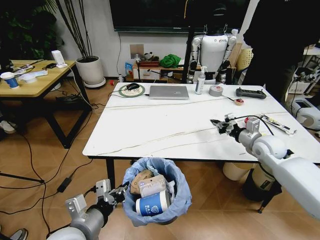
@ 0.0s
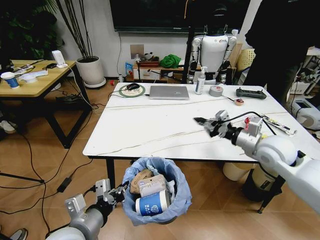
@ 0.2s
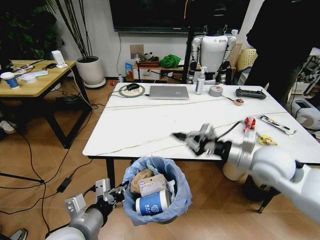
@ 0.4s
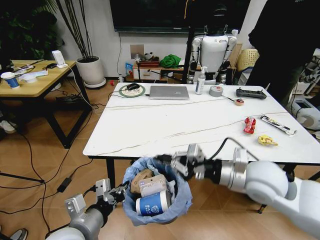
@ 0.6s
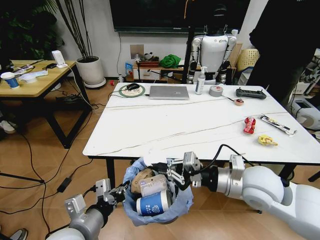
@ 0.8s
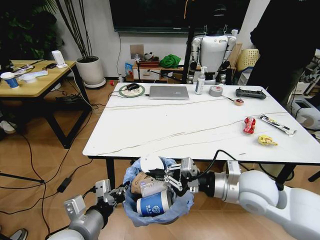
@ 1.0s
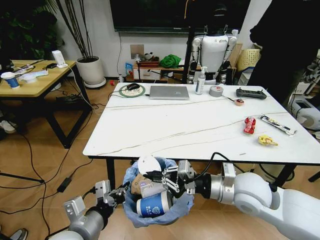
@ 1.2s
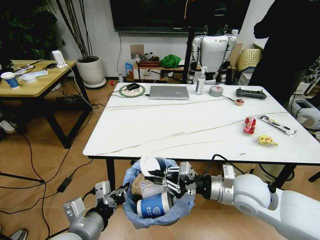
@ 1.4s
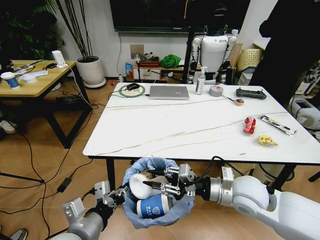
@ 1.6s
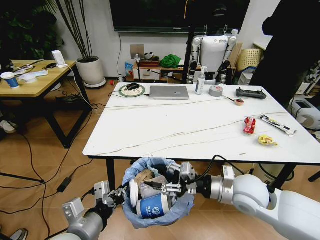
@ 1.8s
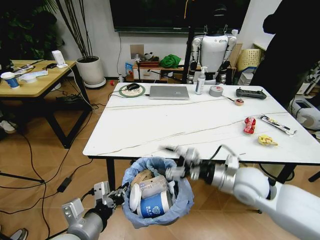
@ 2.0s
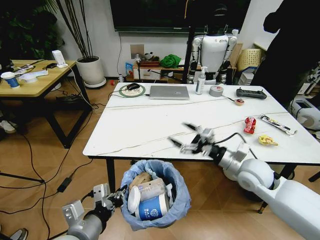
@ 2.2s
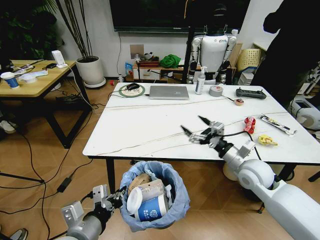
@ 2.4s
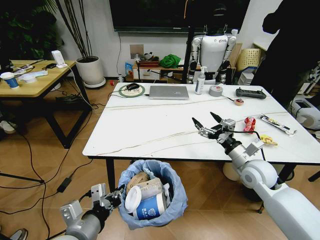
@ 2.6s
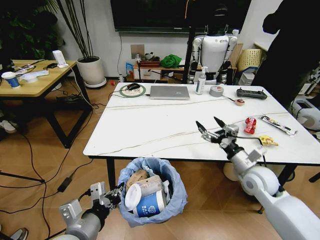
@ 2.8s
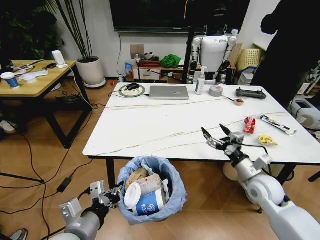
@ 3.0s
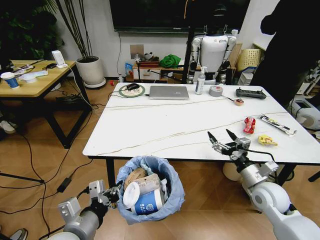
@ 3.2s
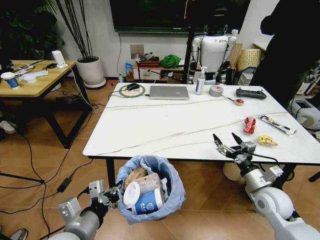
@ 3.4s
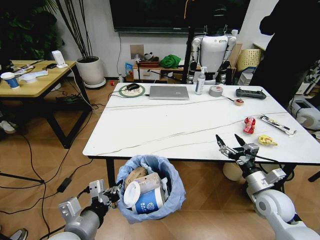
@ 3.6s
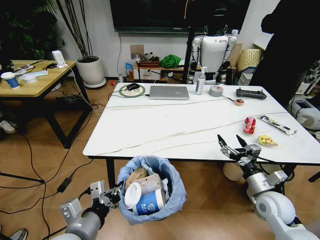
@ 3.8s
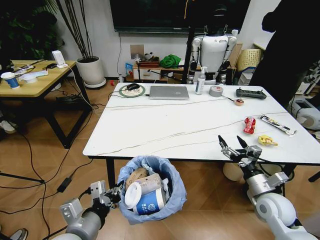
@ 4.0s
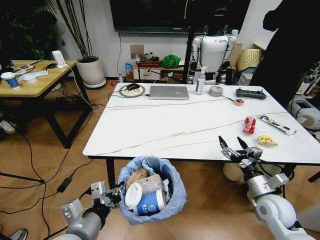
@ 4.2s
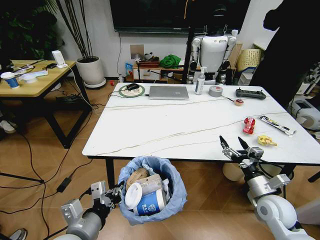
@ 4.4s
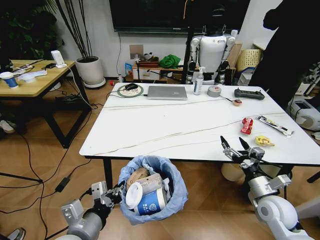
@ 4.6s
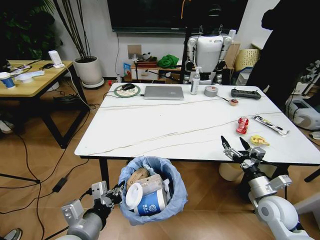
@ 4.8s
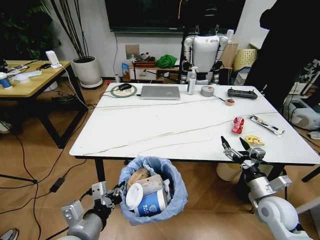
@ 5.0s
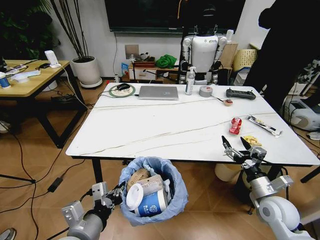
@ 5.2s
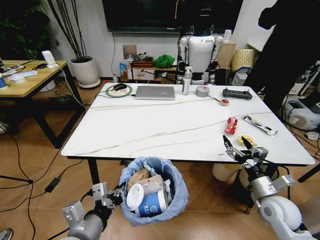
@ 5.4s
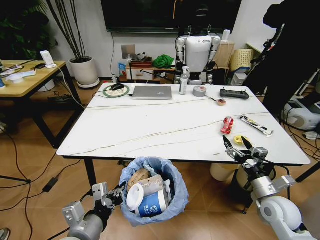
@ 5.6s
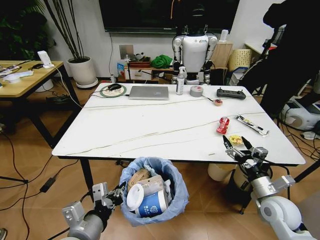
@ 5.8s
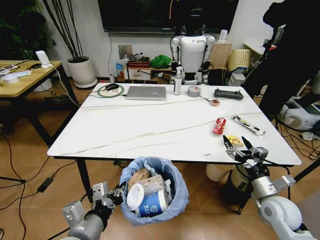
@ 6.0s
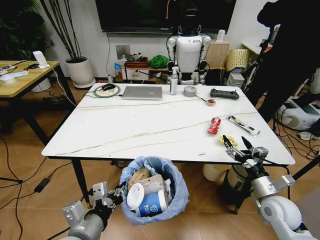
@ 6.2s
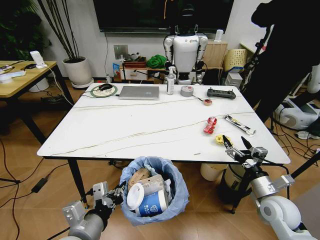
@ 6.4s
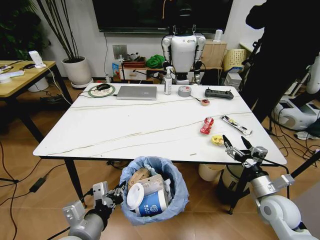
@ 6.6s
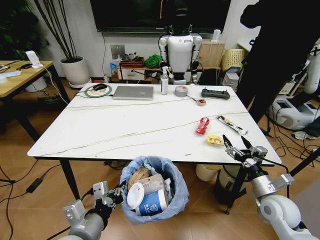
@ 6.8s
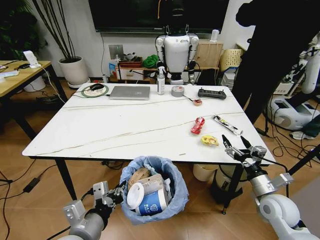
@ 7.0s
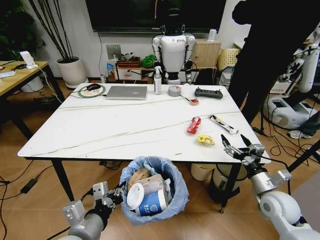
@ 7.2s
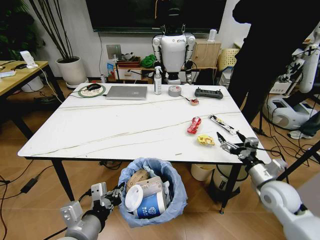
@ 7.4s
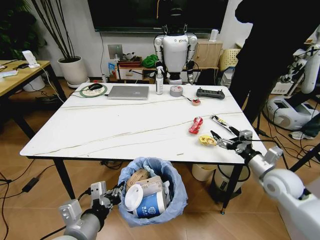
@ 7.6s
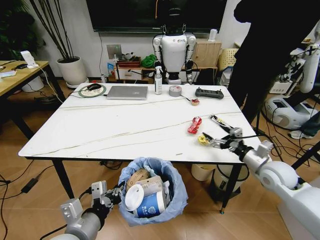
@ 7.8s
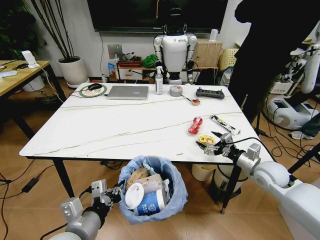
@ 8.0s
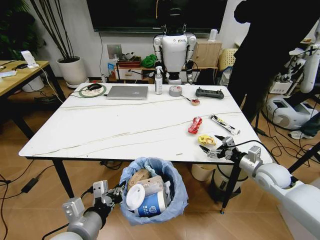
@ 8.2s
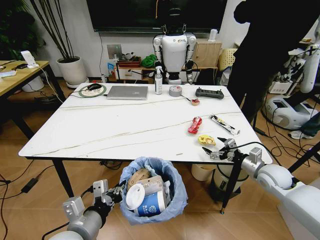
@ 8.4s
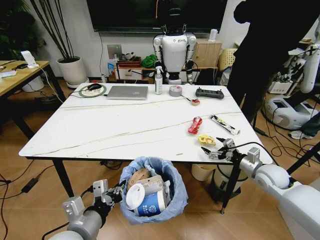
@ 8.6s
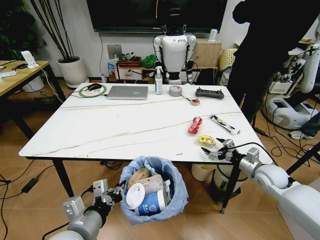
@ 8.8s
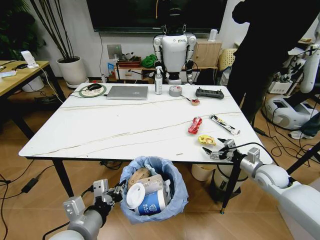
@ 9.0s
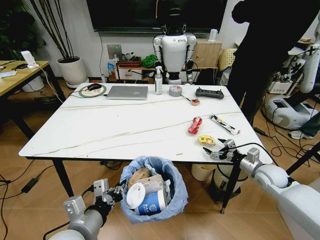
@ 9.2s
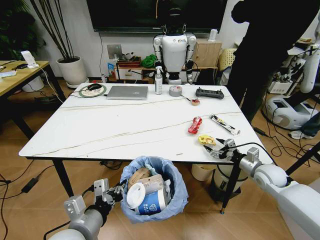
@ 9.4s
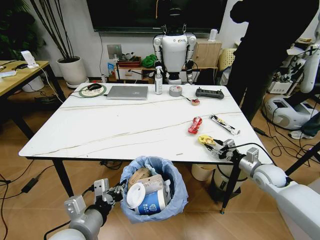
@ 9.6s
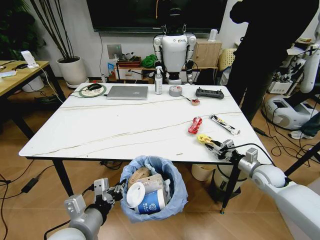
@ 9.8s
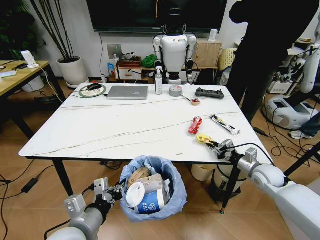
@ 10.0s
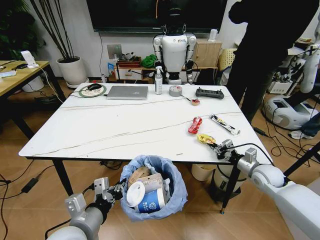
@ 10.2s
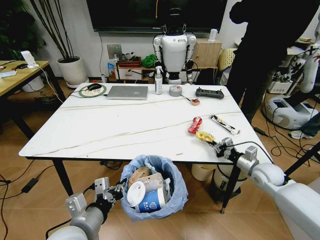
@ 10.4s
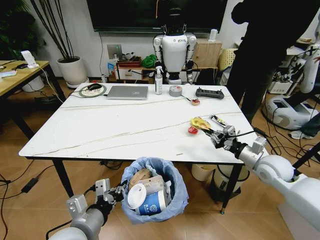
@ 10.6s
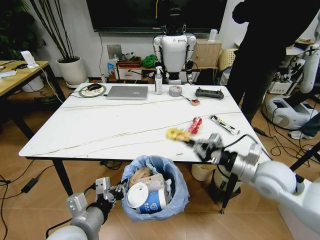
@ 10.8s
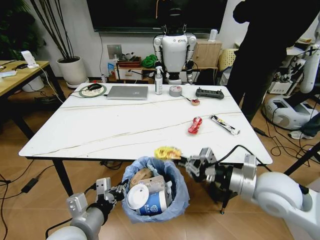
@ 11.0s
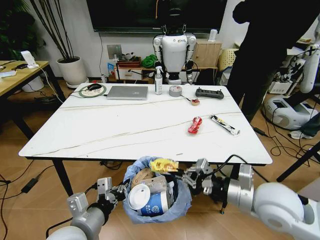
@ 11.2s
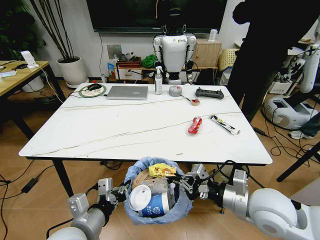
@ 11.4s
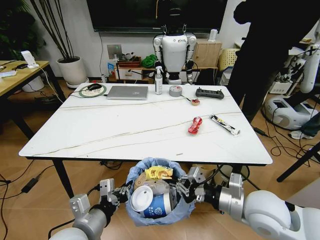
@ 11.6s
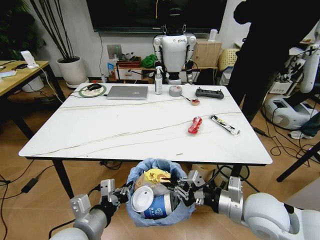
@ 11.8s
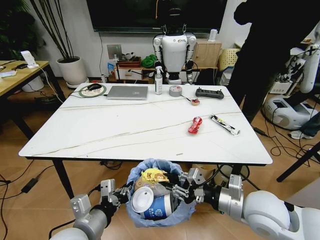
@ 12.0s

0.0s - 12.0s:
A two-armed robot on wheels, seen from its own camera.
Task of the whole recording: Pick up the trash bin and place the trash from the table into it.
0.0s - 1.6s: The right gripper travels backward and to the left by approximately 20 cm.
1.6s - 3.0s: The right gripper heads to the right and downward, covering about 10 cm, and opens up.
3.0s - 4.4s: The right gripper is displaced backward by approximately 5 cm.
6.0s - 7.6s: The right gripper shifts some 10 cm forward and upward.
7.6s - 9.0s: The right gripper shifts about 5 cm downward.
9.0s - 10.4s: The right gripper closes up.
10.4s - 12.0s: The right gripper goes some 25 cm backward, to the left and upward.

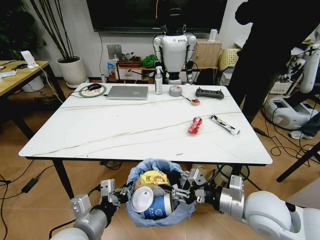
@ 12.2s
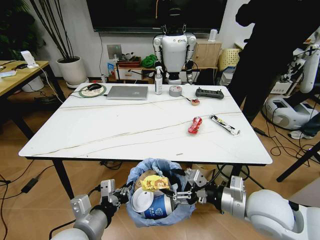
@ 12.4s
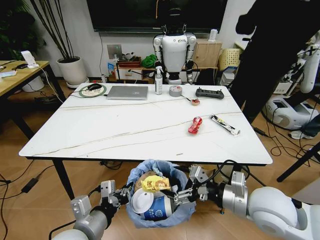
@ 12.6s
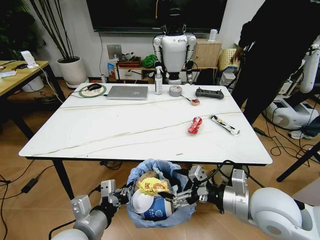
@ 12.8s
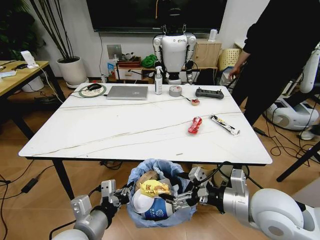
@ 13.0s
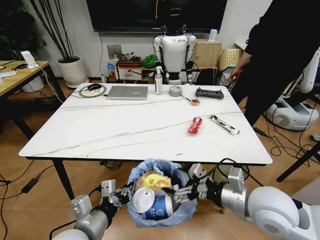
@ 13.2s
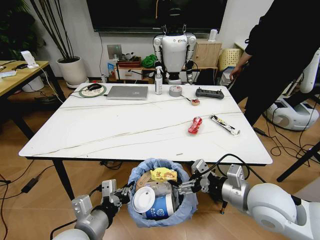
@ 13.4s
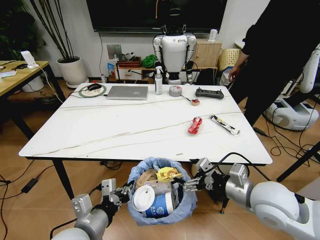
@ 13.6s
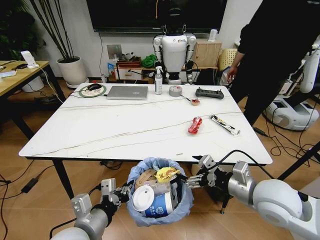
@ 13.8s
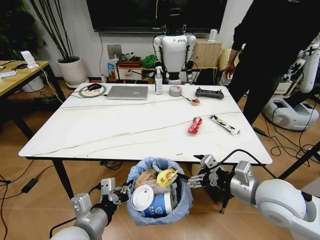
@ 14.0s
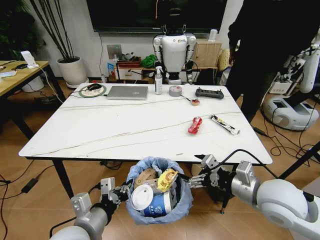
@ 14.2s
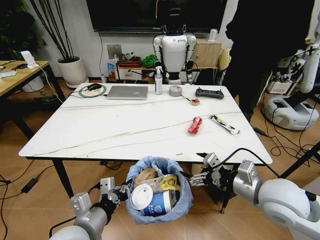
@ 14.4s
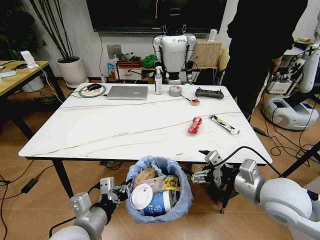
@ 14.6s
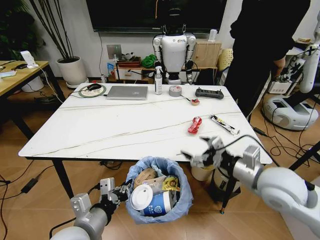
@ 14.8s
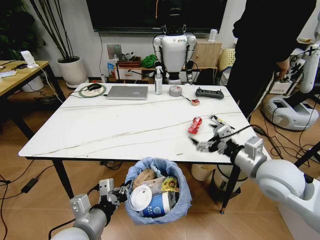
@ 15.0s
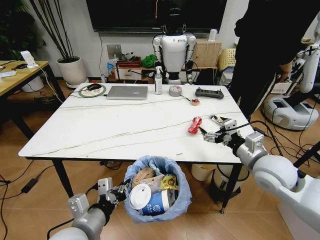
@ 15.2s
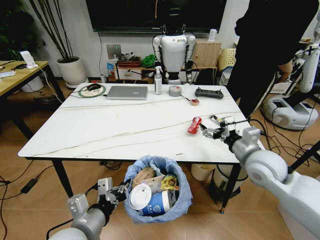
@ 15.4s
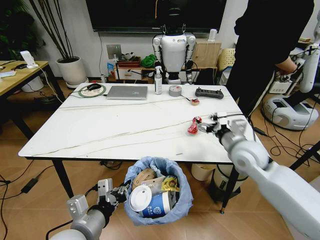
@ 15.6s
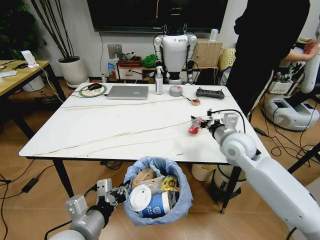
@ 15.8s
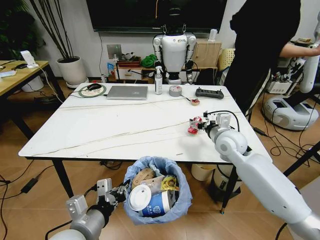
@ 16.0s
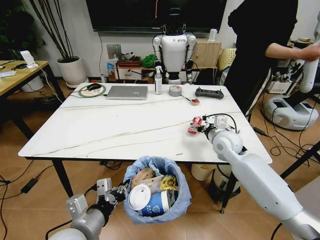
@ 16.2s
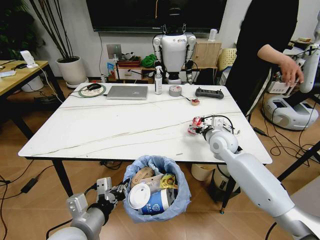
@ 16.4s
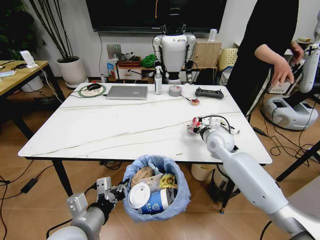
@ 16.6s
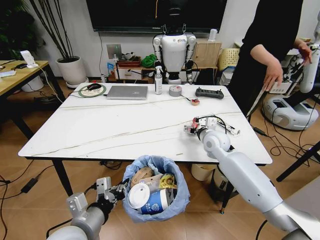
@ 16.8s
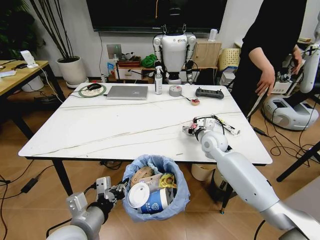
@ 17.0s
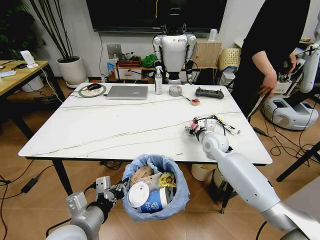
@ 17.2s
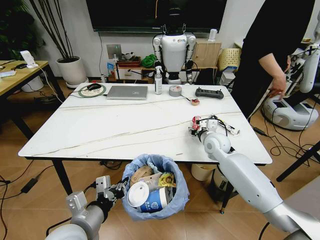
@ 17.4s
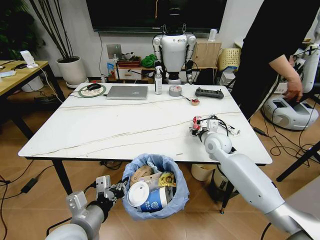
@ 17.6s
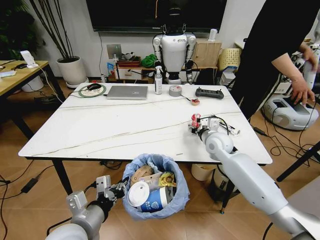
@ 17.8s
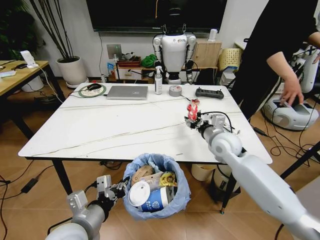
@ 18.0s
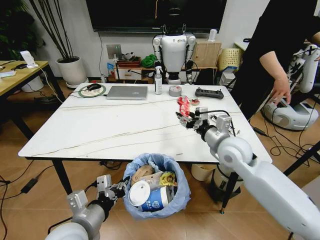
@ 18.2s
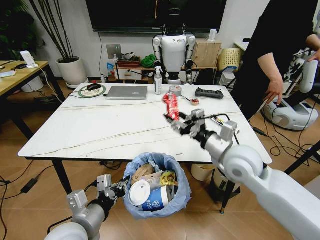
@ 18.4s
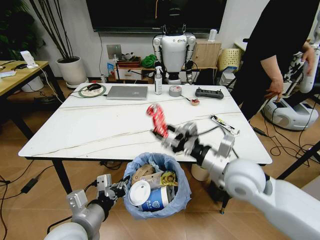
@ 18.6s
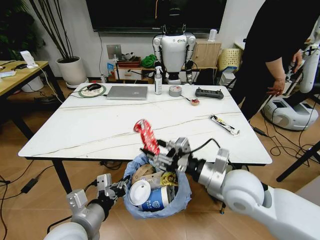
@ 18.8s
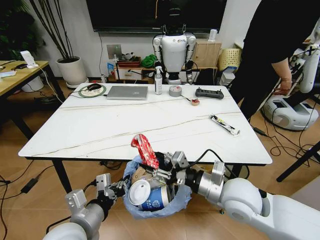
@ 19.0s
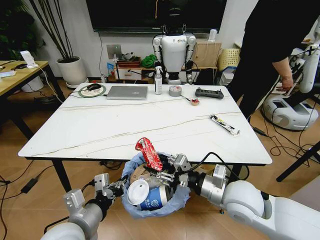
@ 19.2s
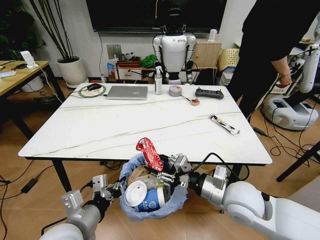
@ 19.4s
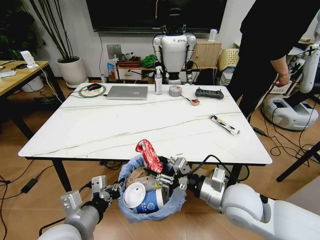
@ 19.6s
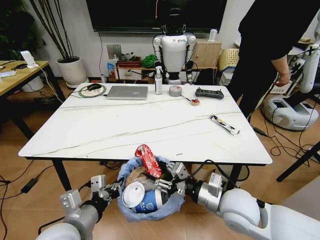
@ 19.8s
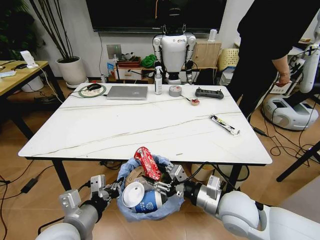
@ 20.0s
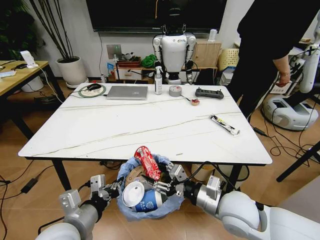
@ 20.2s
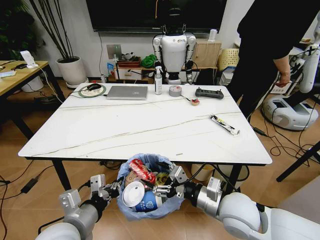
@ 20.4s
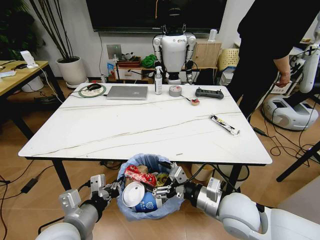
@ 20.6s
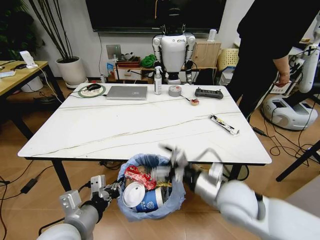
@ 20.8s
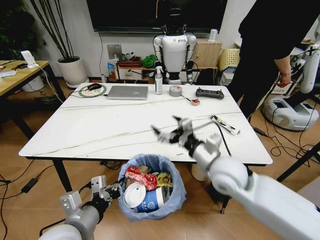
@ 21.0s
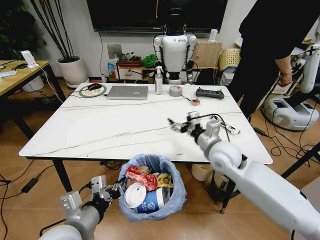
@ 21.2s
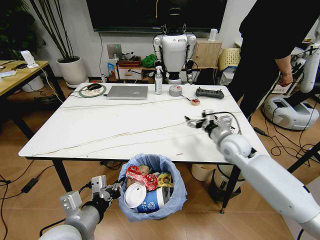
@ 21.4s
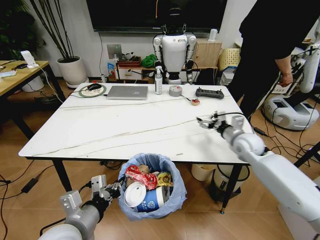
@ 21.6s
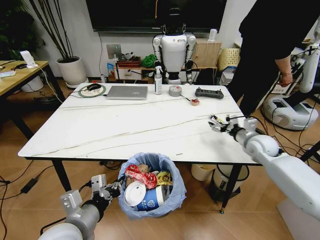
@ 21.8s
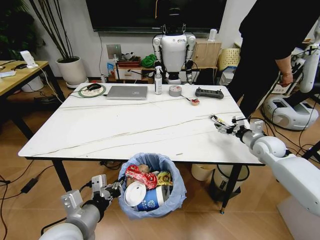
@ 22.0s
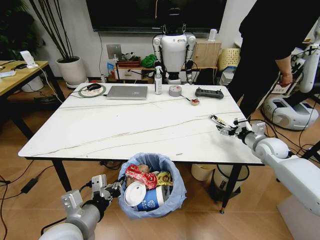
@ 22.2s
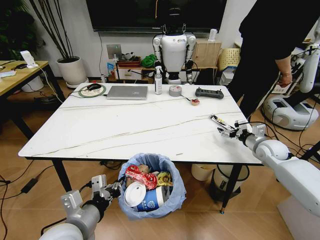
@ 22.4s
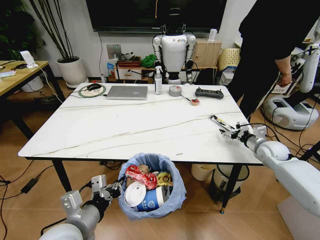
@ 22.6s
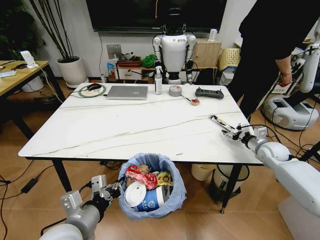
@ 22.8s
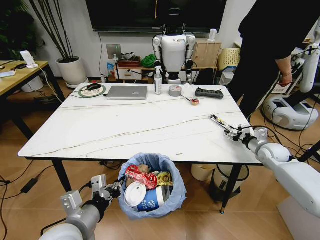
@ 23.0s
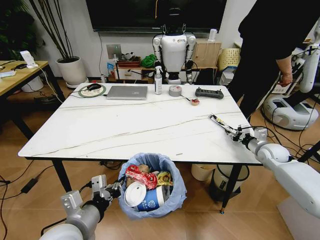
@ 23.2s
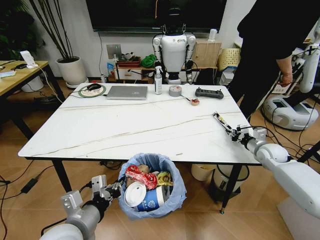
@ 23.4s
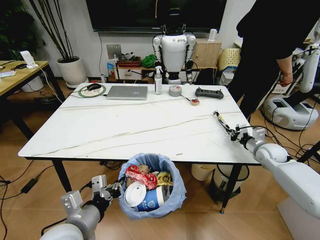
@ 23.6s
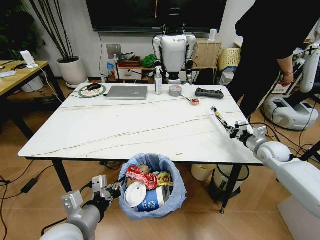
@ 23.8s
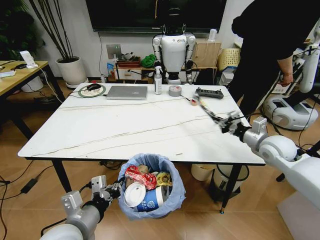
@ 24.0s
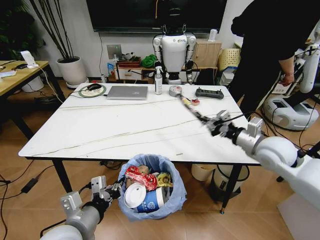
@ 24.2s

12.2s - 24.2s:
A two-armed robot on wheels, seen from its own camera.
Task of the whole recording: Pick up the trash bin and place the trash from the table into it.
12.2s - 13.8s: The right gripper opens.
13.8s - 15.2s: The right gripper heads forward, covering roughly 5 cm.
15.2s - 16.6s: The right gripper heads forward and to the left, covering roughly 20 cm.
16.6s - 18.2s: The right gripper travels backward and upward by some 10 cm, and closes.
18.2s - 19.8s: The right gripper shifts some 15 cm backward and downward.
19.8s - 21.2s: The right gripper travels forward by some 15 cm, and opens its fingers.
21.2s - 22.6s: The right gripper moves to the right, some 25 cm.
22.6s - 24.2s: The right gripper goes roughly 20 cm upward, to the left and backward, and closes up.
